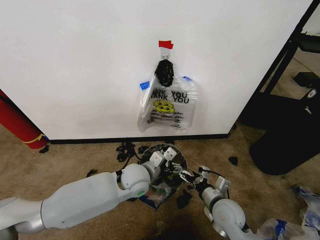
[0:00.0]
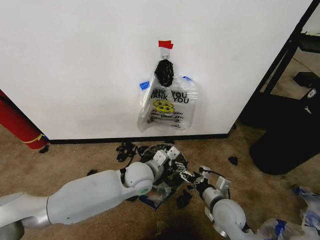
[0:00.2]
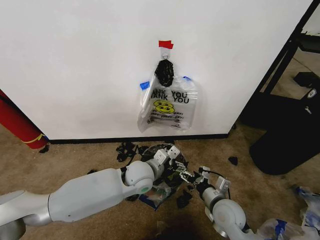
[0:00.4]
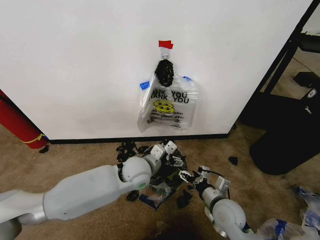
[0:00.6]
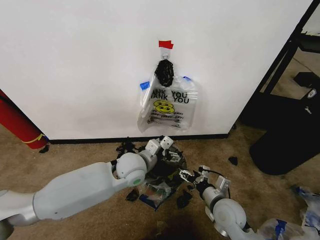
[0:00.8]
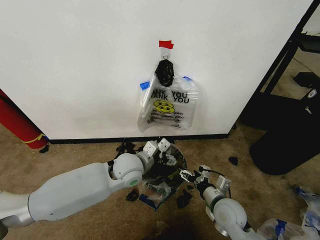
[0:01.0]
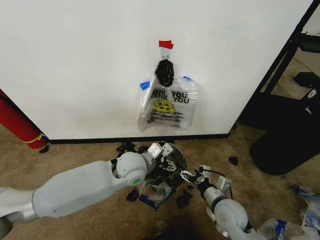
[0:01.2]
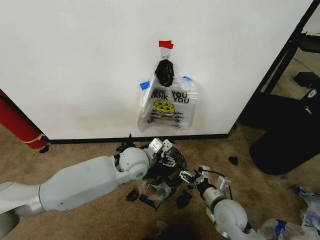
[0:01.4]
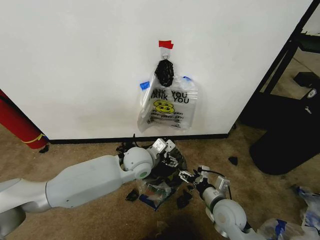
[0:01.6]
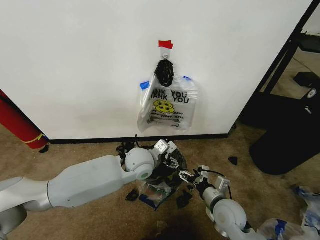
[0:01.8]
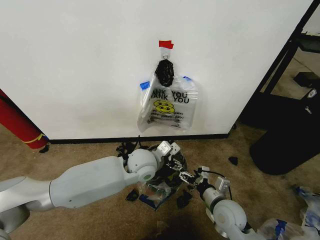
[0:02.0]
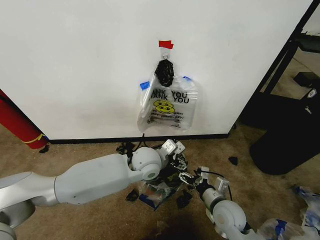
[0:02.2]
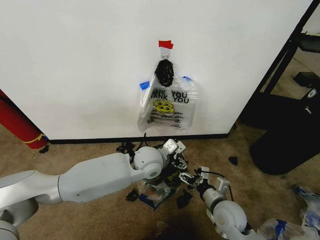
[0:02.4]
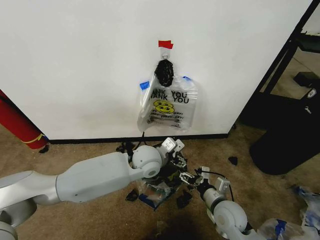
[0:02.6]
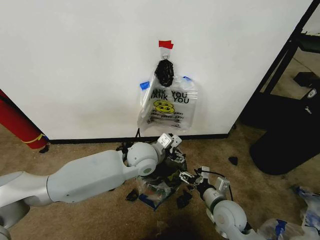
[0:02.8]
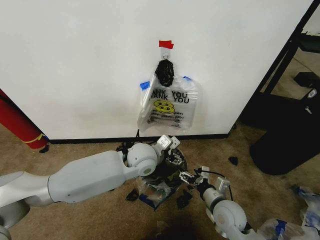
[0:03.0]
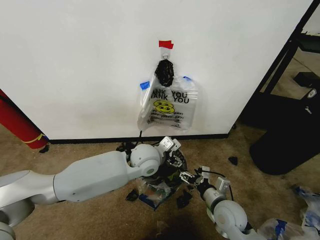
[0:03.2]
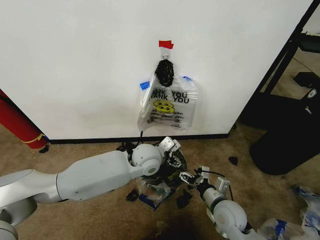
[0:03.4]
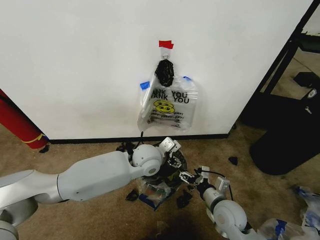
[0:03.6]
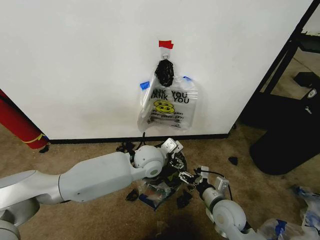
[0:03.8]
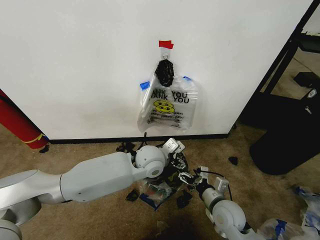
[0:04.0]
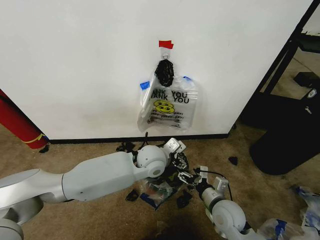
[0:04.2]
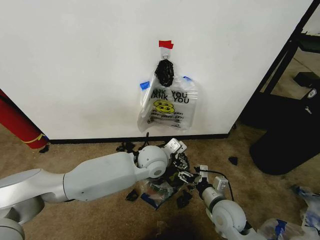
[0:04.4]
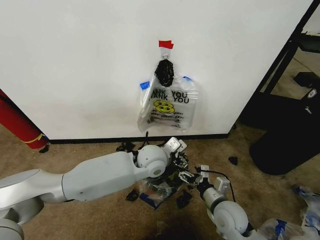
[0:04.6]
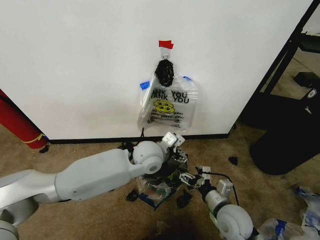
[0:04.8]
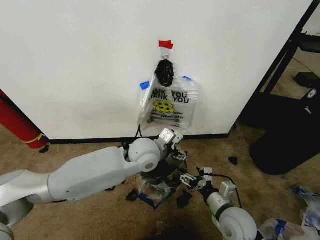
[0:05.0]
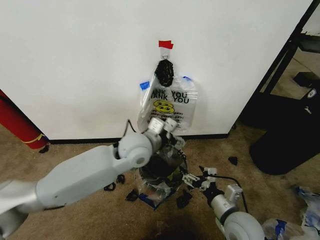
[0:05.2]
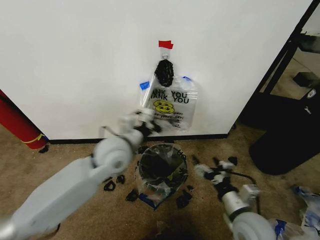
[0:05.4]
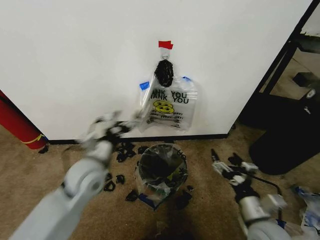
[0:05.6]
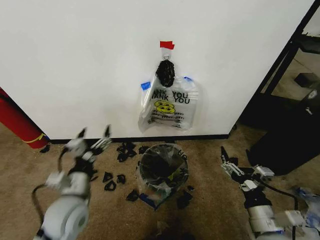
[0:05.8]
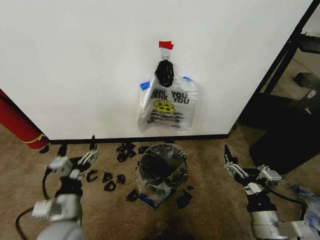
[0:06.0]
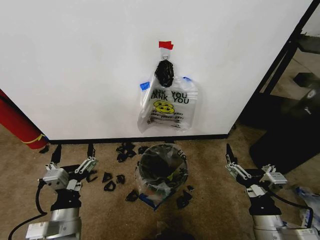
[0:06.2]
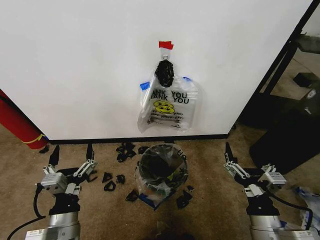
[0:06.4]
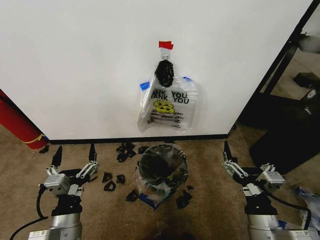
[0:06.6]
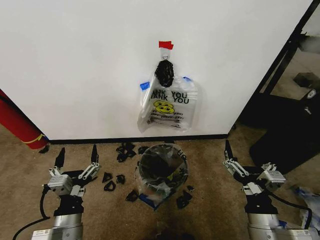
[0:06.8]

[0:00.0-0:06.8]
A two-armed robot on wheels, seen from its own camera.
Task of the whole recording: Pick up the garbage bag from the wall and place it over the trash bin.
0:00.0 to 0:01.4: The left gripper shifts by some 5 cm.
0:01.4 to 0:04.0: The grippers move only a little.
0:04.0 to 0:05.4: The right gripper heads upward and backward, covering roughly 10 cm. The left gripper moves to the left and upward, roughly 10 cm.
0:05.4 to 0:06.8: The right gripper travels backward by approximately 5 cm; the left gripper shifts some 25 cm backward, downward and to the left.

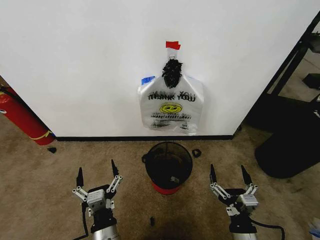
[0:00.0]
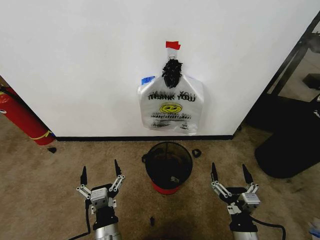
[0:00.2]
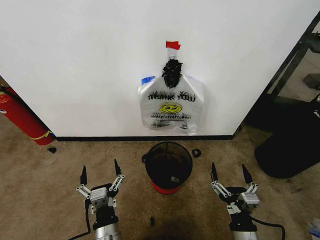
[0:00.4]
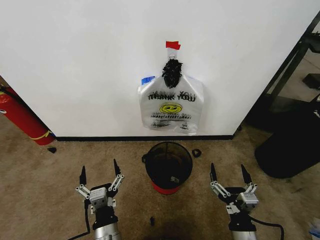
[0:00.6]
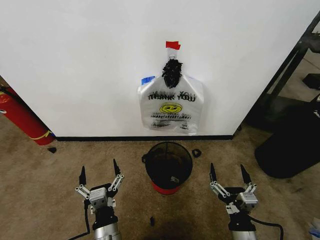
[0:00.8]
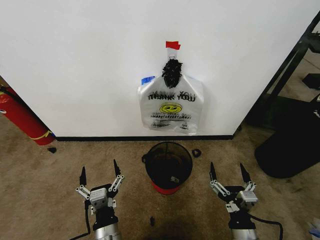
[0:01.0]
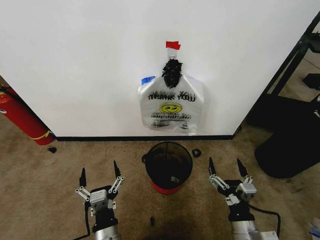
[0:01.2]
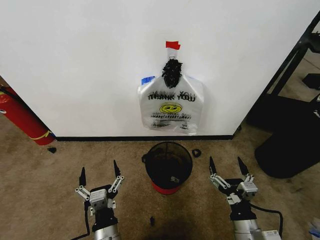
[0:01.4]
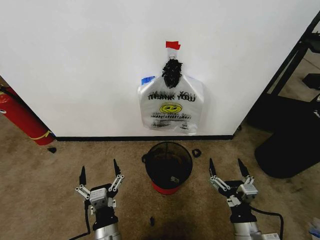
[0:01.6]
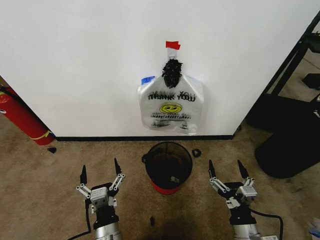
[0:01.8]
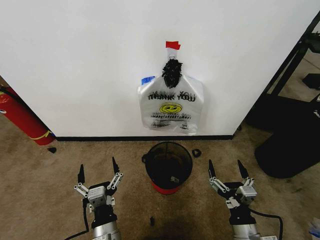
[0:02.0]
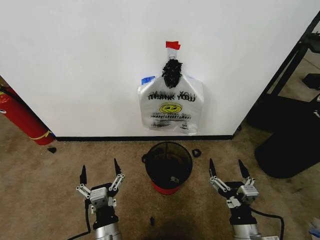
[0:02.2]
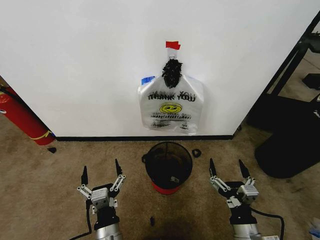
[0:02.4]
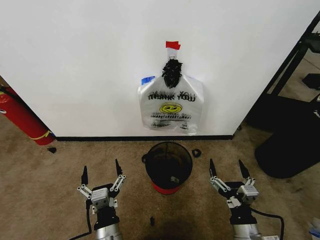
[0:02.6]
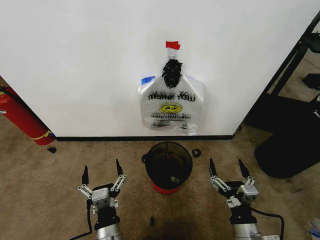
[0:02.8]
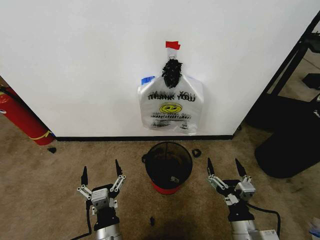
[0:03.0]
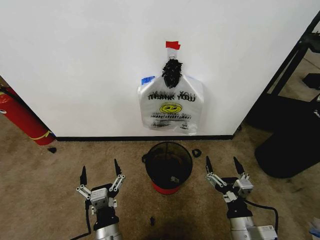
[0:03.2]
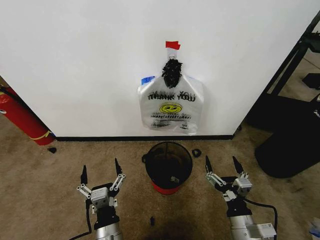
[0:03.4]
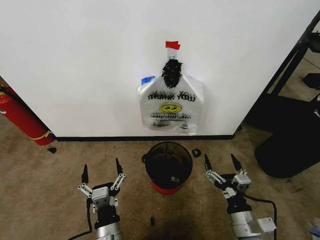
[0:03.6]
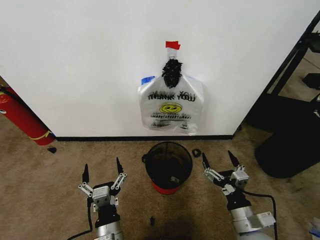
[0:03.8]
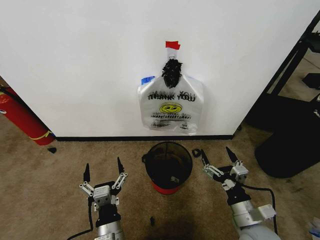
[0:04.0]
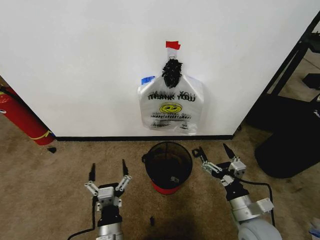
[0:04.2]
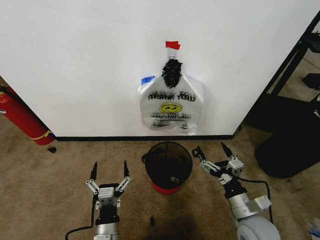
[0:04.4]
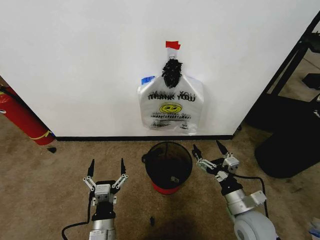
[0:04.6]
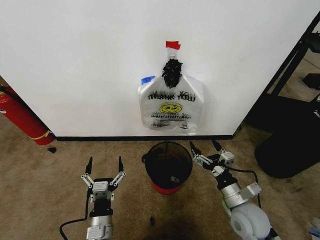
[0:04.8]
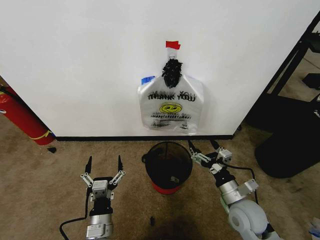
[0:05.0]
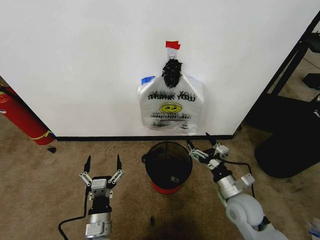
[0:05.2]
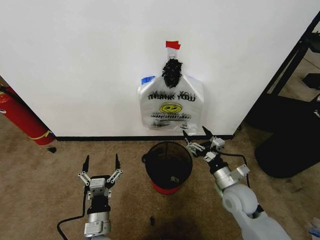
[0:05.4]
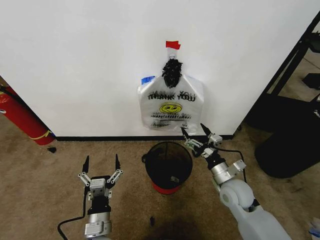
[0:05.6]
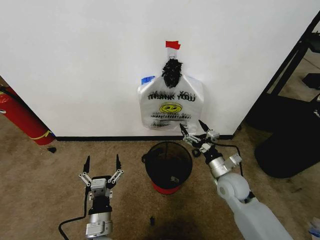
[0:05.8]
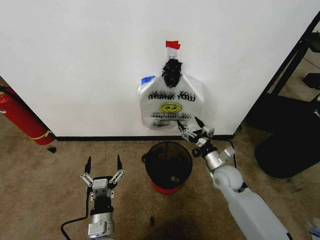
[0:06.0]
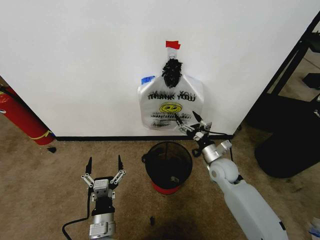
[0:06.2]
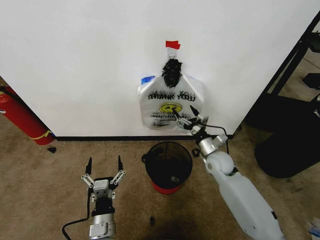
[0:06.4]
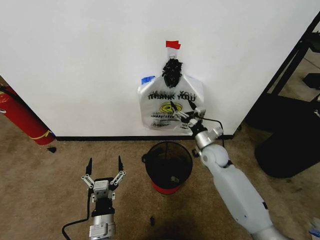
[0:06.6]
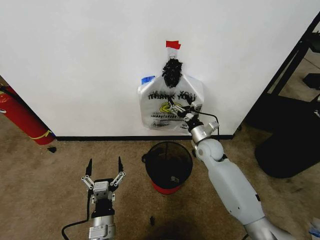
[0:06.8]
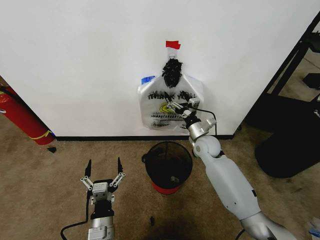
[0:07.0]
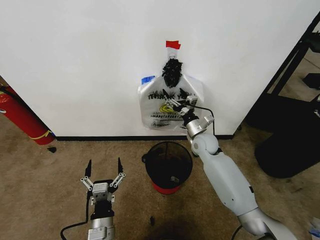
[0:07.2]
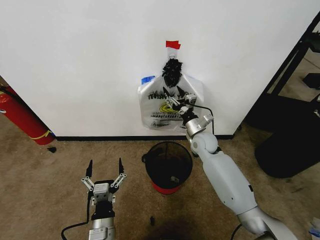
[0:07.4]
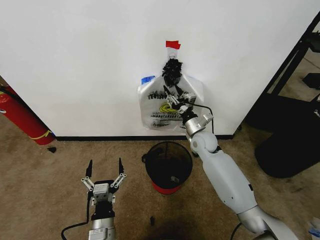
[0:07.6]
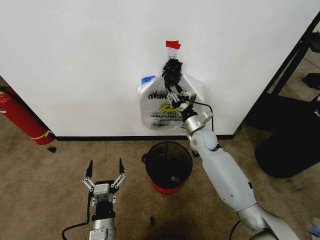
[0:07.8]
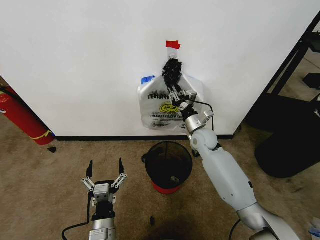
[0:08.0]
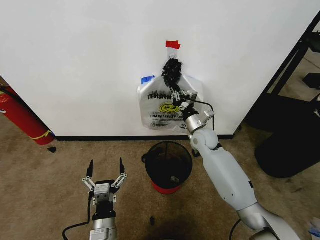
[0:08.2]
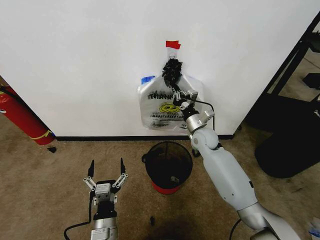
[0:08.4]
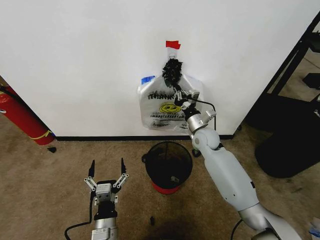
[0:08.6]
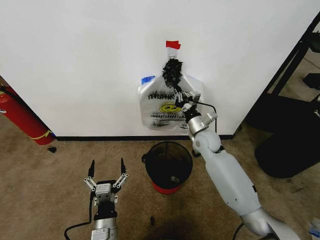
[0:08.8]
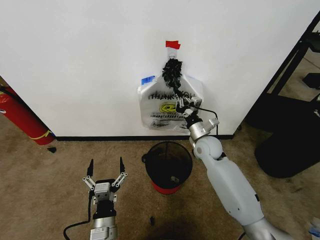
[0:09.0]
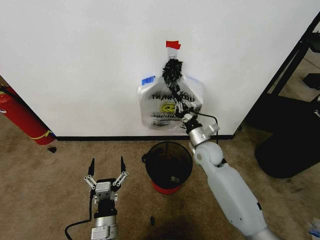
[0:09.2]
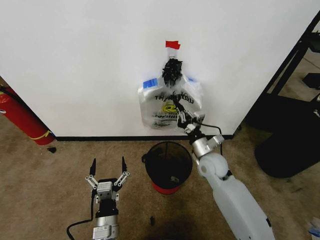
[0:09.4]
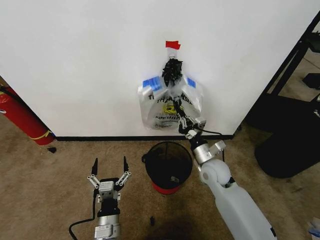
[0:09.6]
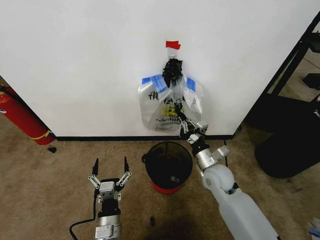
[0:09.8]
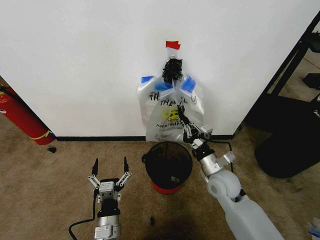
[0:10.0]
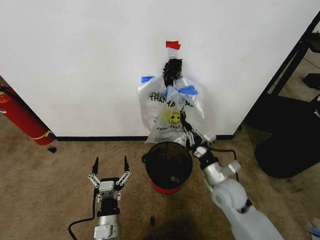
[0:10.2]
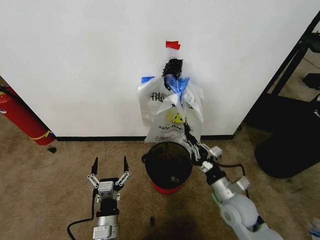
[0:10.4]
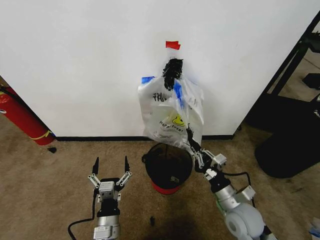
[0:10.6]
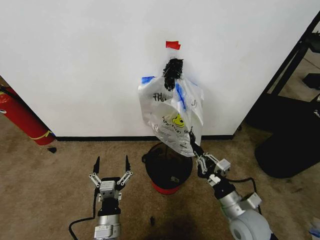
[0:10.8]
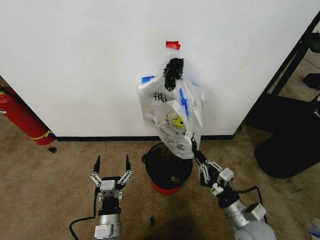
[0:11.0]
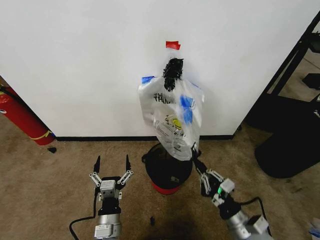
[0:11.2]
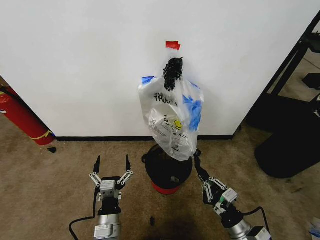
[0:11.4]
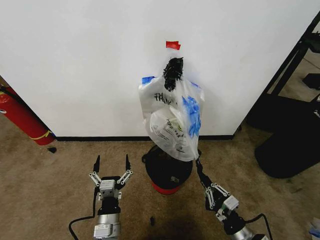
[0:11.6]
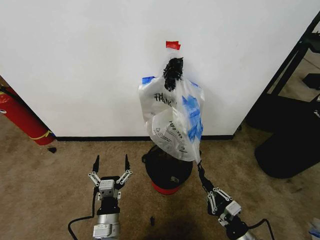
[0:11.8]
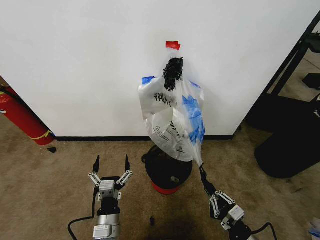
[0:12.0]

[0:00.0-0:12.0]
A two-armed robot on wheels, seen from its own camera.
Task of the whole recording: Pick up the garbage bag from the wall and place it over the trash bin.
0:01.6 to 0:03.0: The two grippers keep their place.
0:03.0 to 0:04.4: The right gripper shifts approximately 10 cm forward.
0:04.4 to 0:06.0: The right gripper goes some 15 cm forward.
0:06.0 to 0:07.6: The right gripper travels forward, to the left and upward by roughly 15 cm, and closes its fingers.
0:07.6 to 0:09.0: The right gripper closes its fingers.
0:09.0 to 0:10.4: The right gripper is displaced backward by roughly 20 cm.
0:10.4 to 0:12.0: The right gripper heads backward, downward and to the right, covering roughly 15 cm.

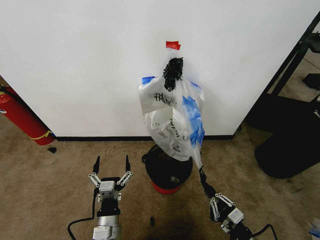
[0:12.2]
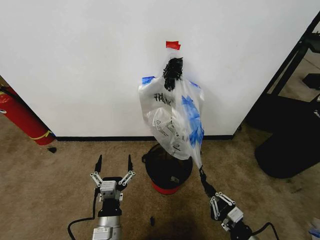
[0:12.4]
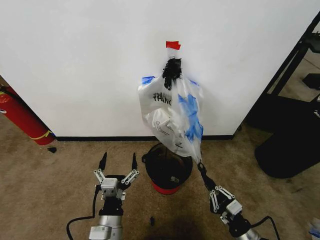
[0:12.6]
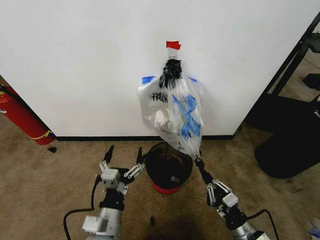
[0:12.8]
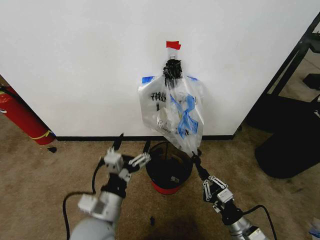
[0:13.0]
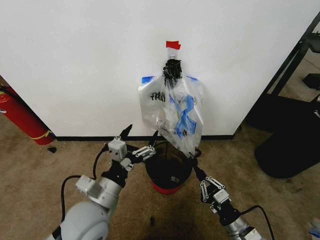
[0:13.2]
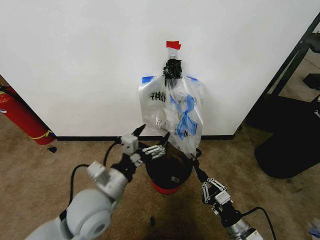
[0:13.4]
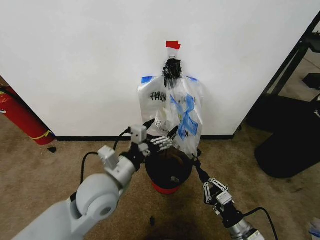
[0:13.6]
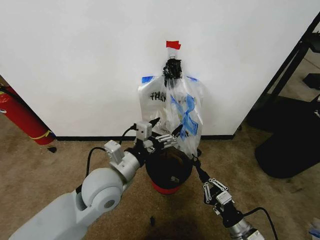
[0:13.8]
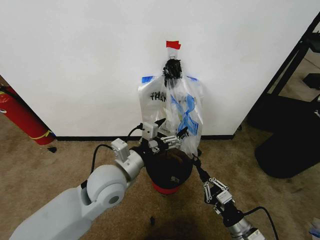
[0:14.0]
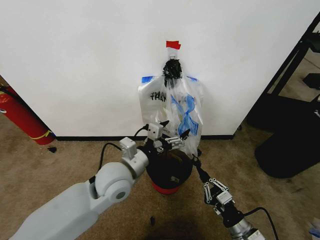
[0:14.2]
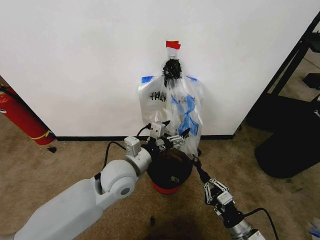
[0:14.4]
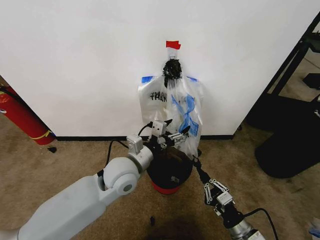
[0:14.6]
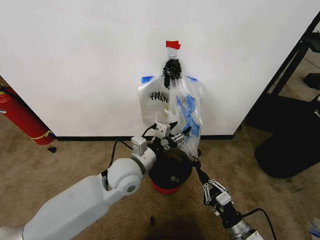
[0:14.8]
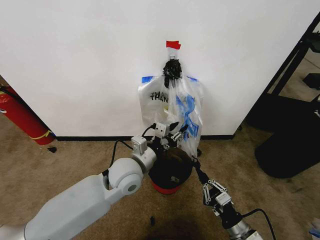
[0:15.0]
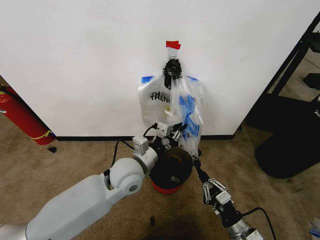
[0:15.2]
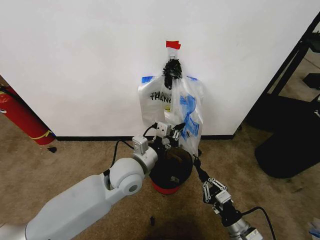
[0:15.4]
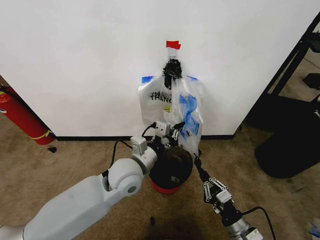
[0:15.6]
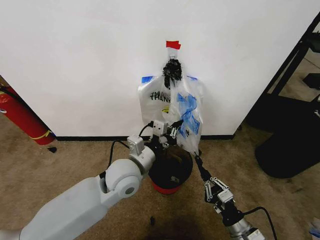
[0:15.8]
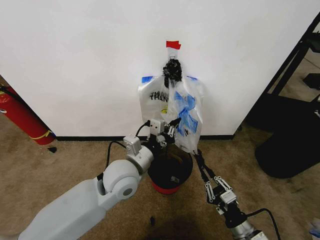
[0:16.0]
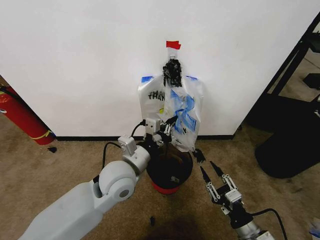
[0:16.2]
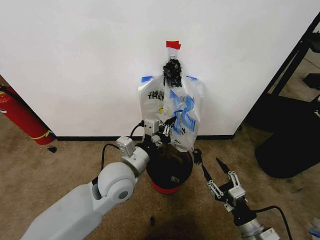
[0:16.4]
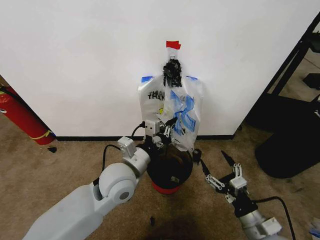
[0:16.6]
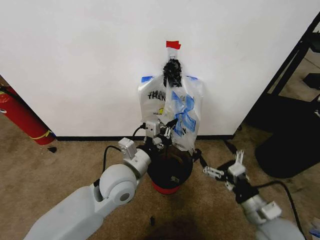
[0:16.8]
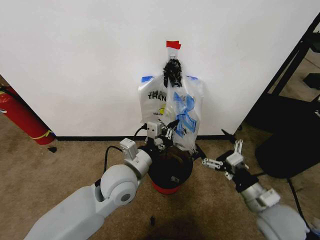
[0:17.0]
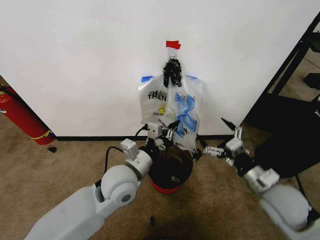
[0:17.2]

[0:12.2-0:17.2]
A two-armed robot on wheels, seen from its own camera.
Task of the whole recording: Pick up the garbage bag from the wall and place it over the trash bin.
0:12.2 to 0:13.8: The left gripper shifts about 20 cm upward and forward; the right gripper changes place by approximately 5 cm.
0:13.8 to 0:15.6: The left gripper changes place by about 5 cm, and closes.
0:15.6 to 0:17.2: The right gripper travels upward and forward by some 20 cm, and opens up.
